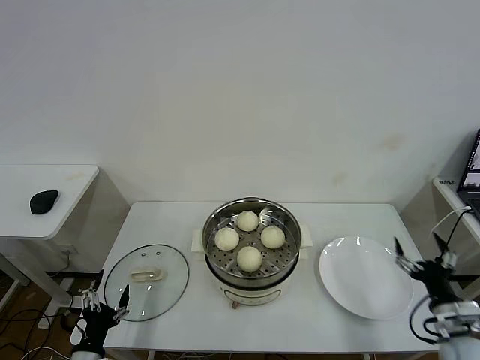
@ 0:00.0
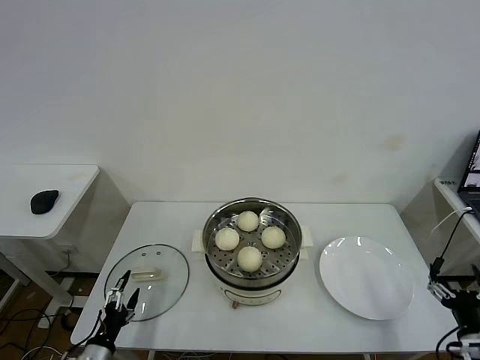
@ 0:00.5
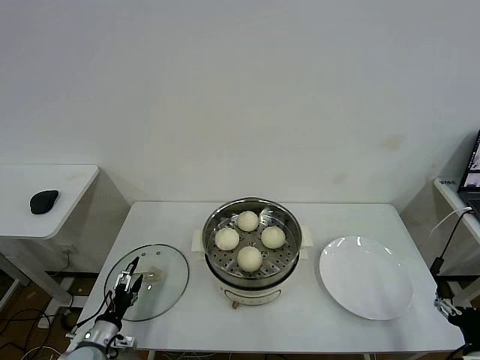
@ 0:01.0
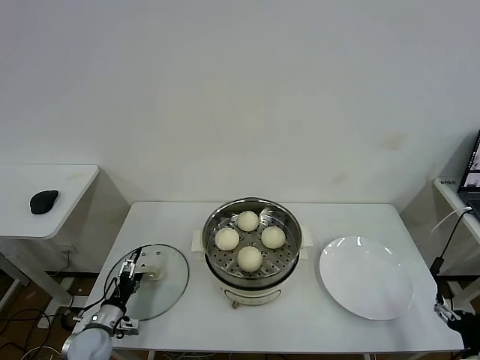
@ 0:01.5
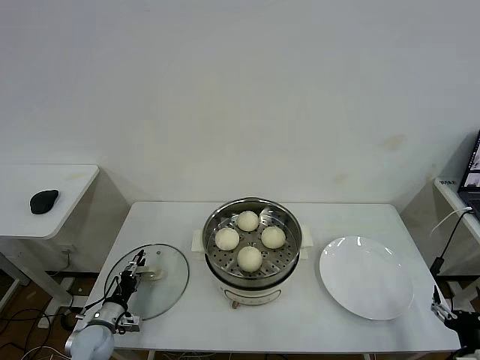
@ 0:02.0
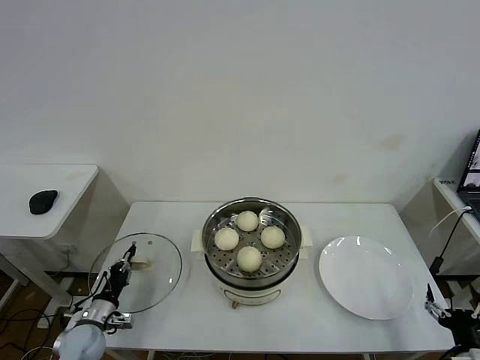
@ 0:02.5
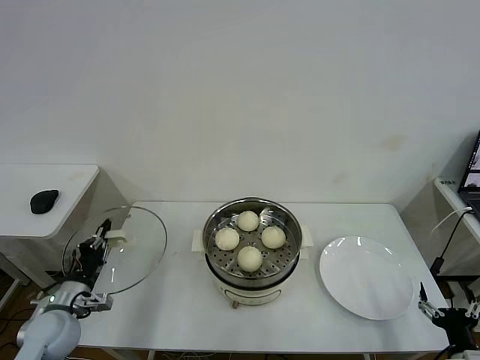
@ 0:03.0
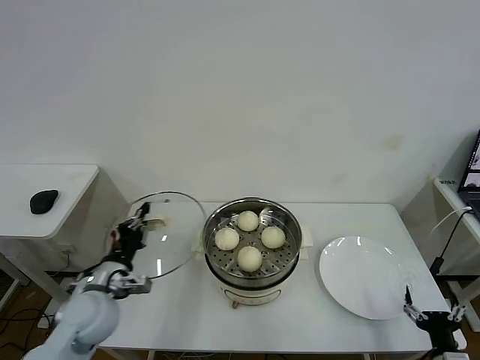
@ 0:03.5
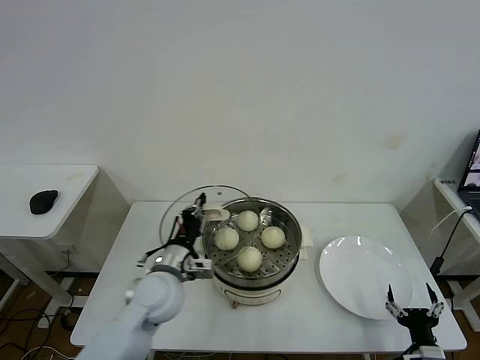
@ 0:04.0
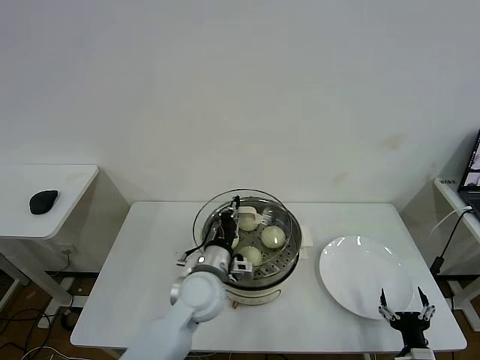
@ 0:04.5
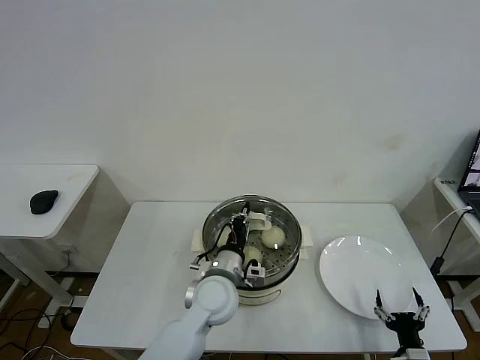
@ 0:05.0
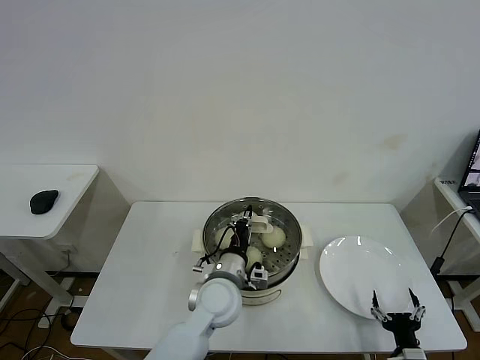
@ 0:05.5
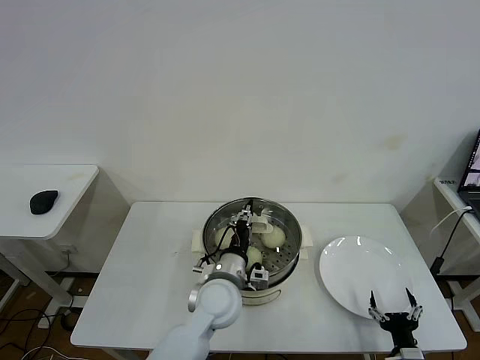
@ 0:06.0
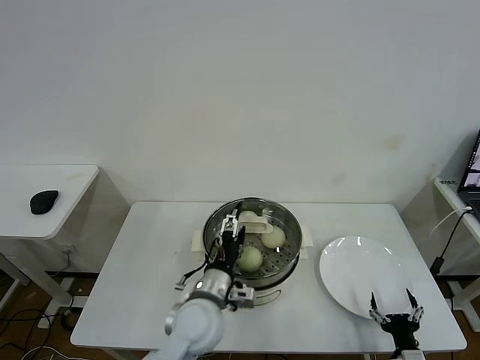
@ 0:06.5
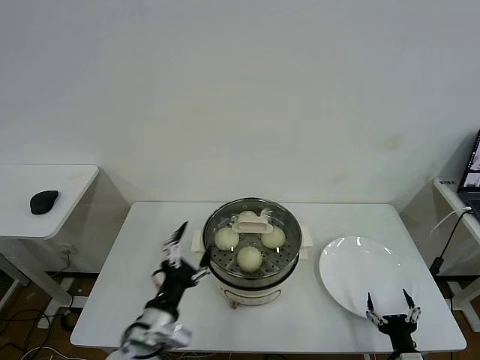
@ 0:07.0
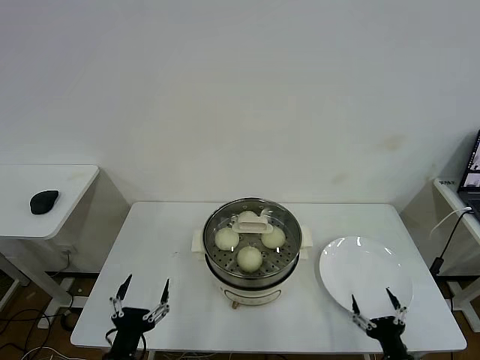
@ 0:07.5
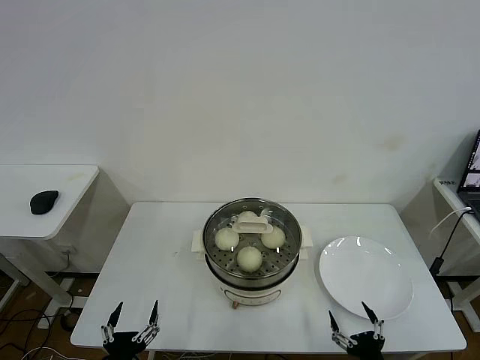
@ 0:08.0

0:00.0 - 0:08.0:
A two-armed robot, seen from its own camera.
Task of the whole recording: take steamed baozi put them in steamer then cover it.
Step, 0:00.0 - 0:02.5: Grasp the pot lid with left gripper.
Step, 0:03.0 - 0:06.0: Place the pot lid on the steamer with left gripper.
0:00.0 - 0:02.0: The left gripper is displaced forward and downward by roughly 15 cm, and closes its fingers; the right gripper travels backward and downward by roughly 10 cm.
0:02.0 - 0:04.0: The left gripper is displaced upward and to the right by approximately 30 cm, and closes up. The right gripper moves to the left, about 5 cm.
0:04.0 - 0:06.0: The left gripper shifts roughly 15 cm to the right.
0:06.0 - 0:08.0: The left gripper shifts about 30 cm backward and to the left, and opens its fingers, while the right gripper moves to the left and backward, approximately 10 cm.

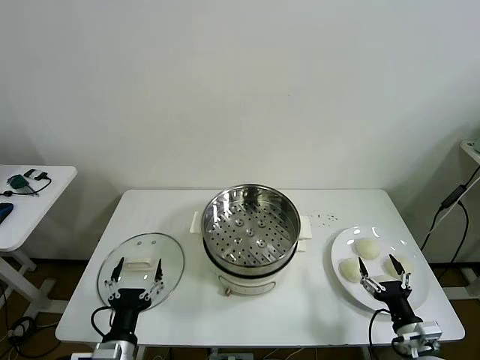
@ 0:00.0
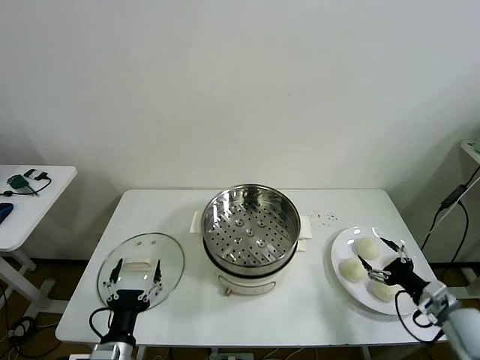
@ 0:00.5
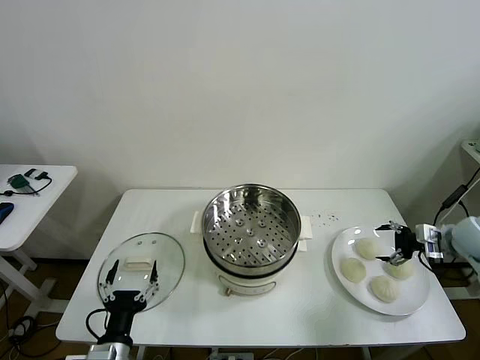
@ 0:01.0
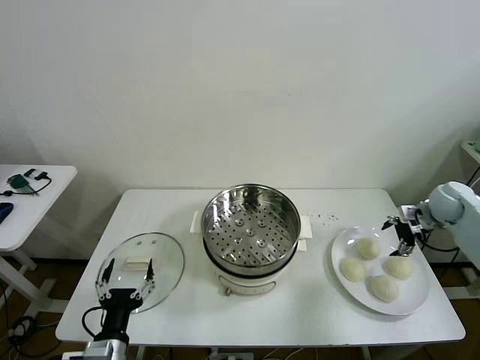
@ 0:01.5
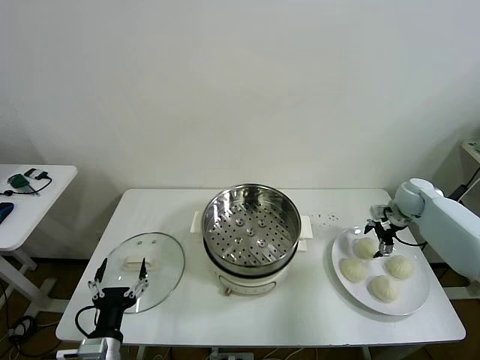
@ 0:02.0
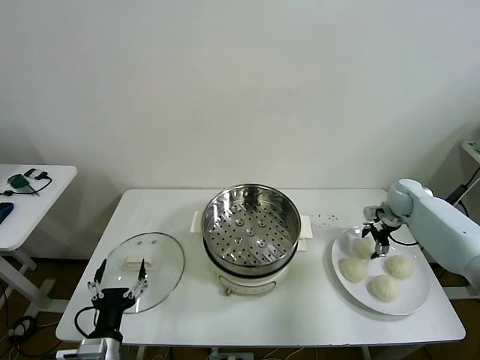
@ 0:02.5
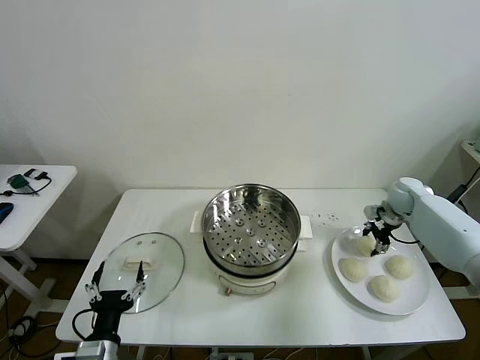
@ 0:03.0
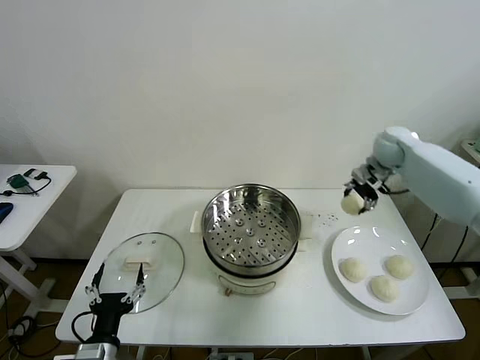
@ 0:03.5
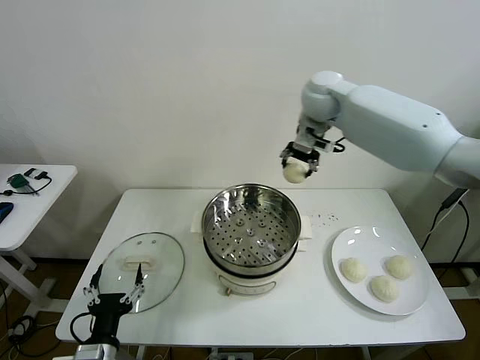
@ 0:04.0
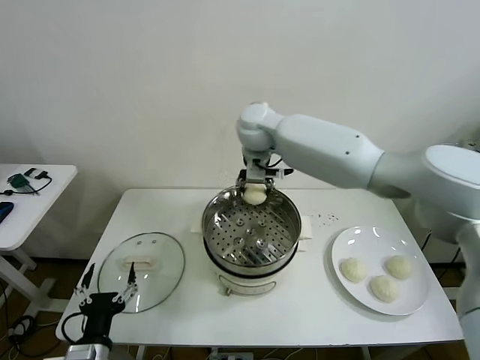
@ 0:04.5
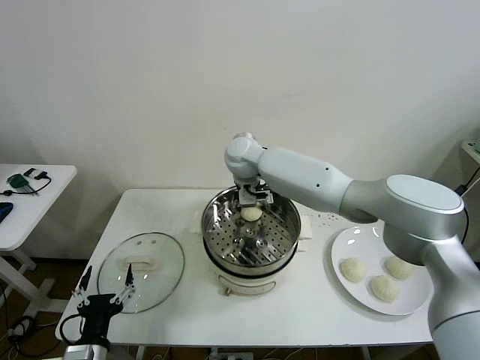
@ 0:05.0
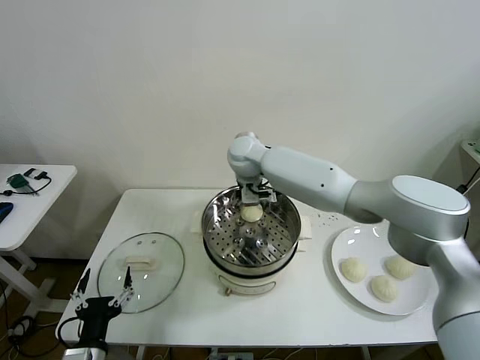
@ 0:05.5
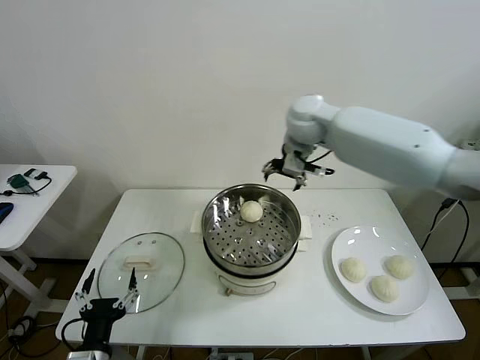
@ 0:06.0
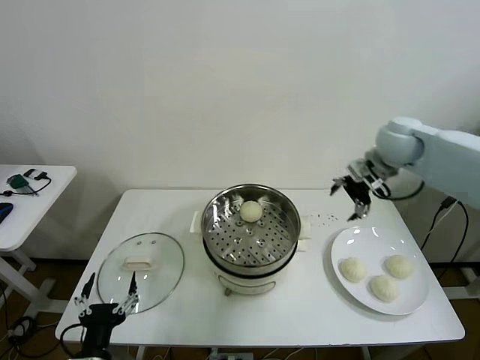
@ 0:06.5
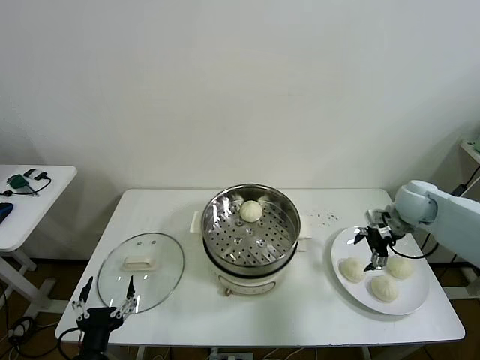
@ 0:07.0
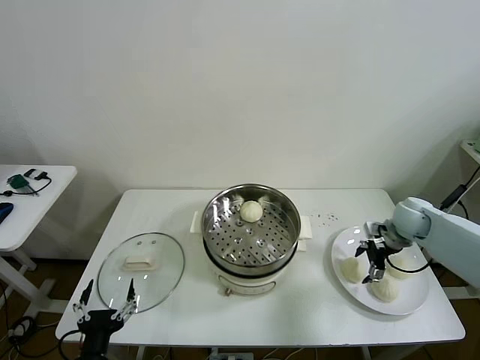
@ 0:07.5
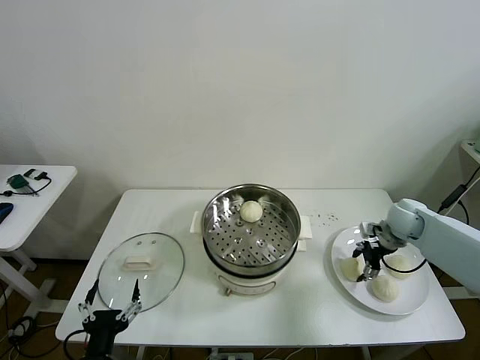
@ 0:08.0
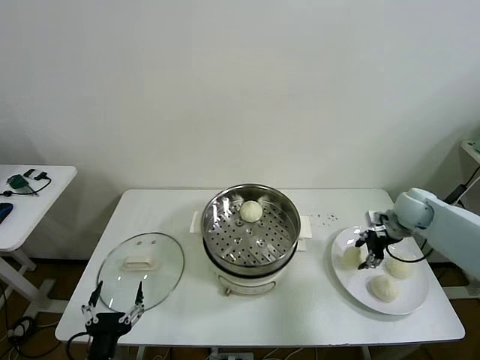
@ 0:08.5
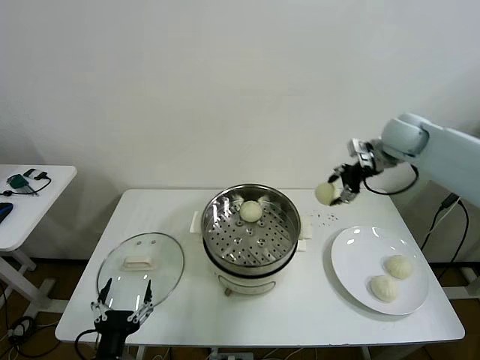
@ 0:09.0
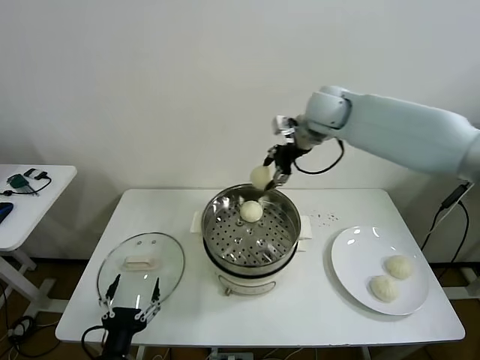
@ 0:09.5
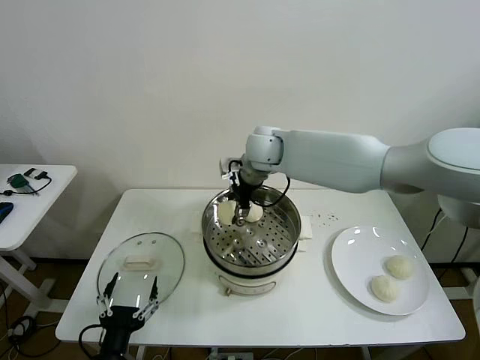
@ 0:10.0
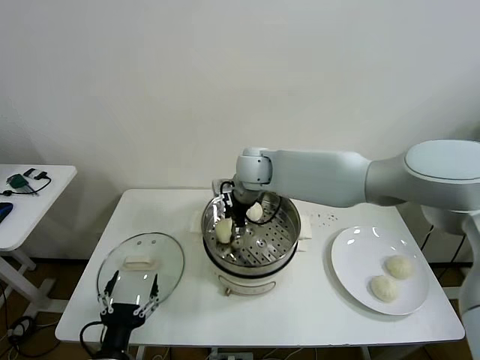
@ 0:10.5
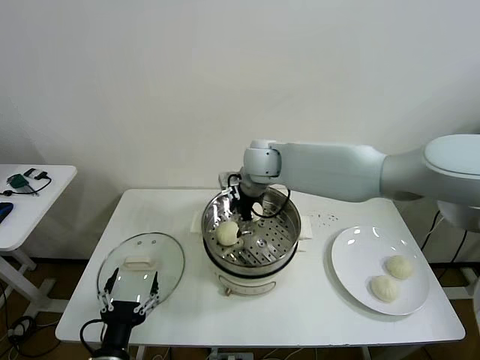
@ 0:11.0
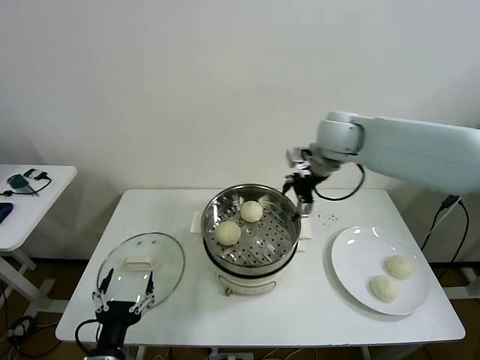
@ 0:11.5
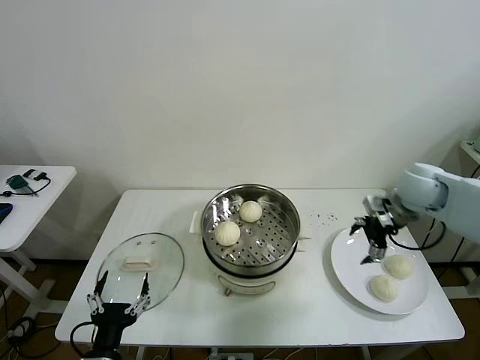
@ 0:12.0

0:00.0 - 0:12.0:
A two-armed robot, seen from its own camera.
Task of the whole recording: take steamed baozi put them in steamer then cover it.
Step, 0:00.0 - 0:02.5: Grasp the baozi in the plate with right gripper.
Step, 0:03.0 - 0:05.0: Place the baozi on the steamer with right gripper.
Step, 0:05.5 - 0:08.0: Grasp the baozi in the plate with right gripper.
Step, 0:08.5 - 0:10.5: Place the baozi on the steamer with right gripper.
0:02.0 - 0:04.0: The right gripper is displaced to the left and upward by about 40 cm, and closes its fingers.
0:04.0 - 0:06.0: The right gripper travels to the right by about 10 cm, and opens.
0:06.0 - 0:08.0: The right gripper shifts about 30 cm downward and to the right, and closes.
0:08.0 - 0:10.0: The right gripper heads to the left and upward, covering about 40 cm.
0:10.0 - 0:12.0: The right gripper moves to the right, roughly 35 cm, and opens.

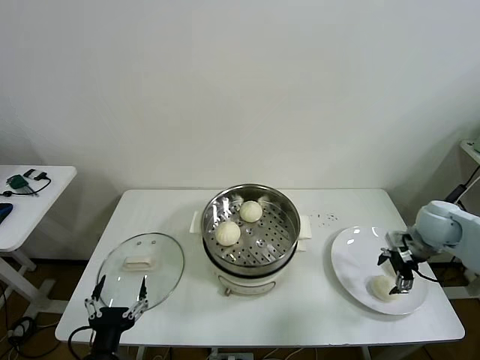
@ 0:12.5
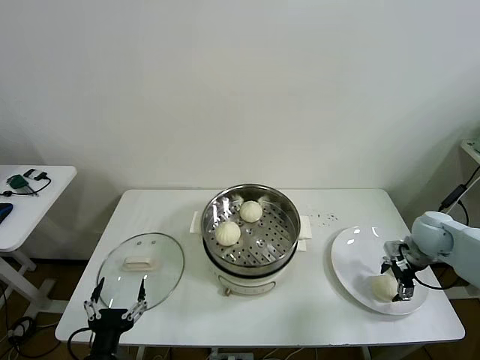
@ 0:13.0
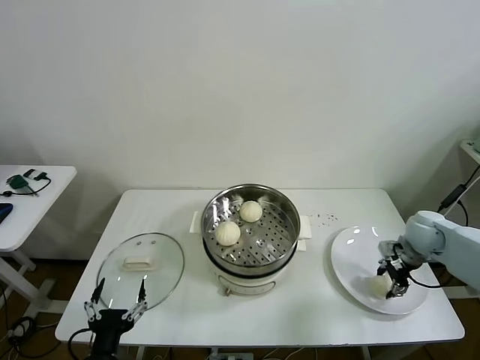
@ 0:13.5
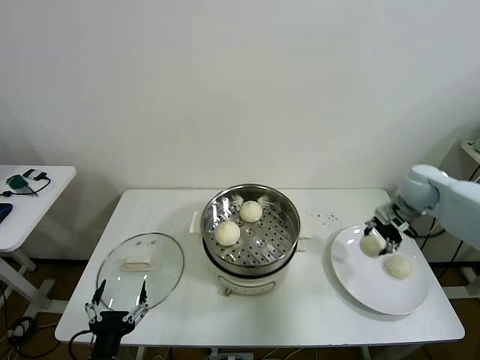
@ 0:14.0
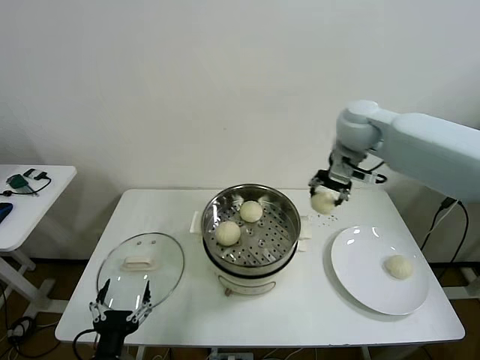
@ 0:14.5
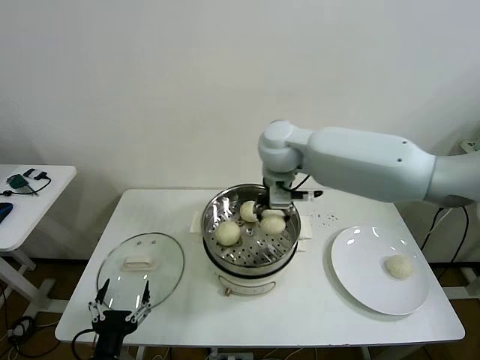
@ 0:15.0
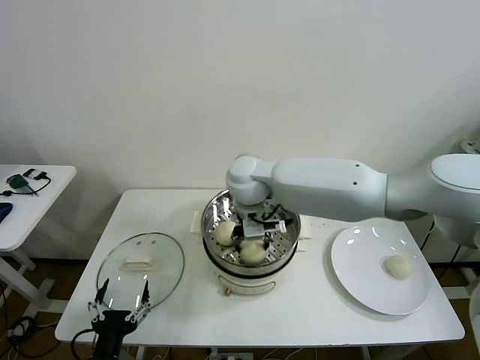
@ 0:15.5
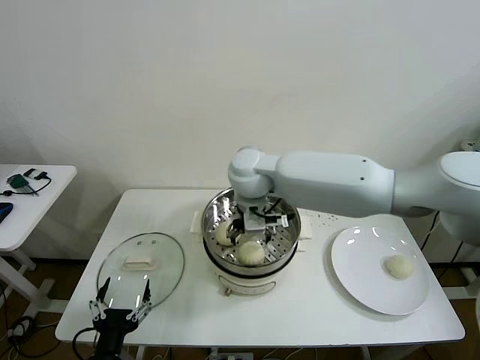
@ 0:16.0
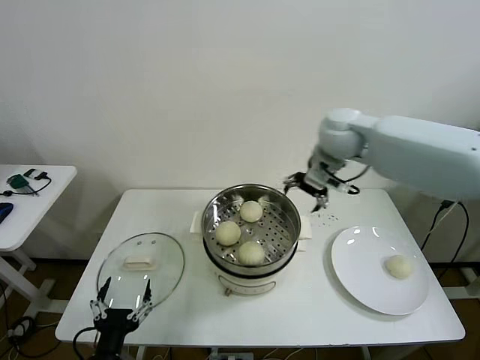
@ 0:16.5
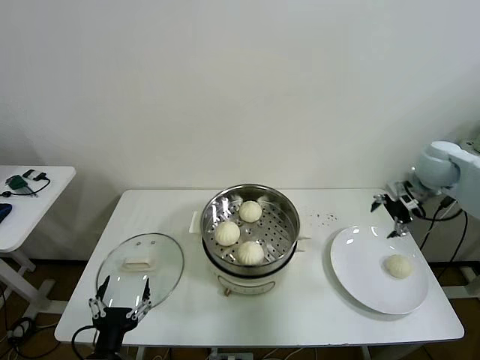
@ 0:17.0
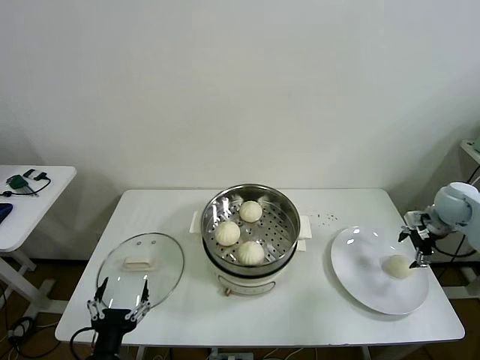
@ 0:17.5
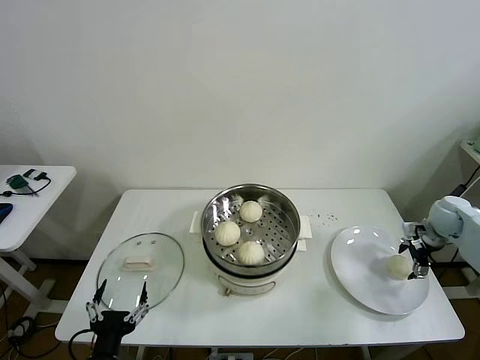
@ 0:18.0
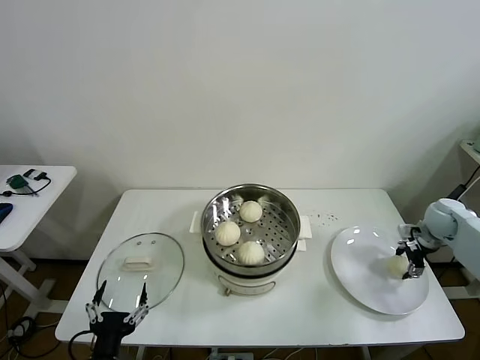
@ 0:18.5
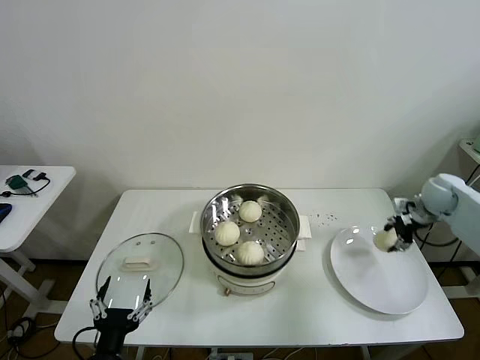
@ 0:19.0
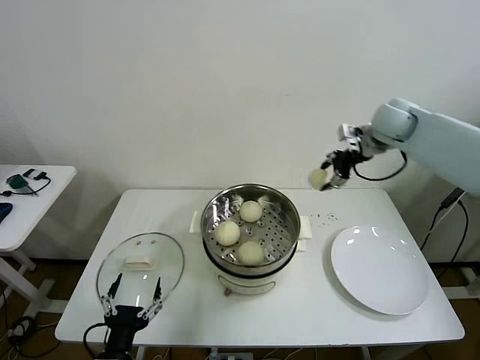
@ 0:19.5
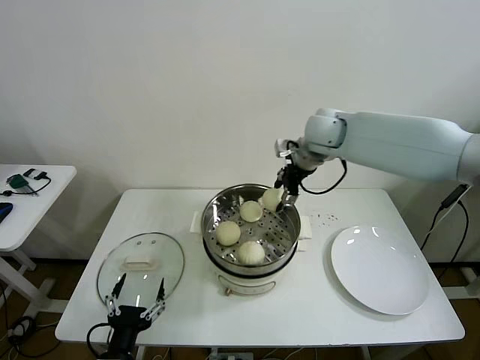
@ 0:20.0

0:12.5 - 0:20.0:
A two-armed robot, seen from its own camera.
Task of the whole recording: take steamed baozi put them in steamer then cover it.
Step, 0:14.0 - 0:15.5: Place the baozi on the steamer with right gripper.
Step, 0:16.0 - 0:18.5: Grasp the baozi in the plate with right gripper.
0:12.5 - 0:14.5: The right gripper heads to the left, upward and forward, covering about 35 cm, and closes.
0:14.5 - 0:16.5: The right gripper goes to the left and returns, some 20 cm each way, and opens.
0:16.5 - 0:18.0: The right gripper heads to the right and downward, covering about 35 cm.
0:18.0 - 0:20.0: The right gripper travels to the left and upward by roughly 40 cm, and closes up.
